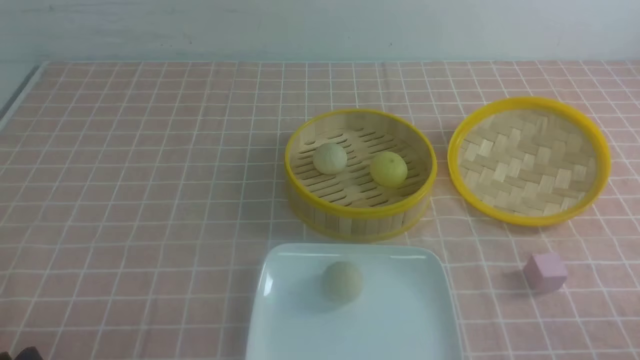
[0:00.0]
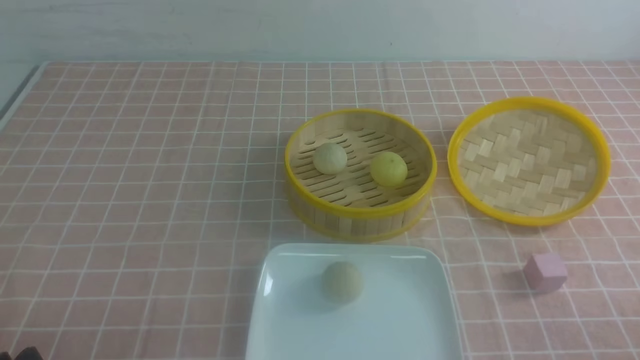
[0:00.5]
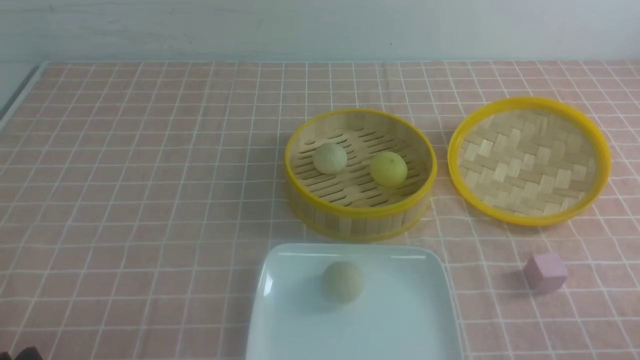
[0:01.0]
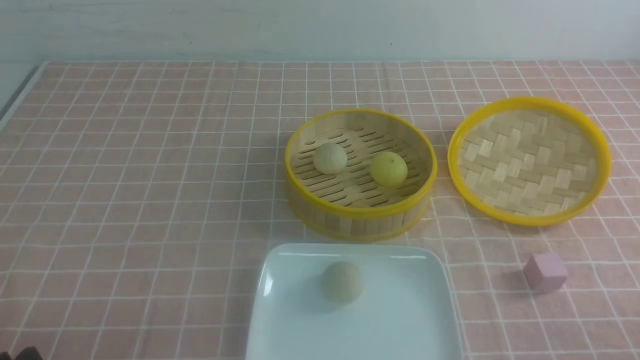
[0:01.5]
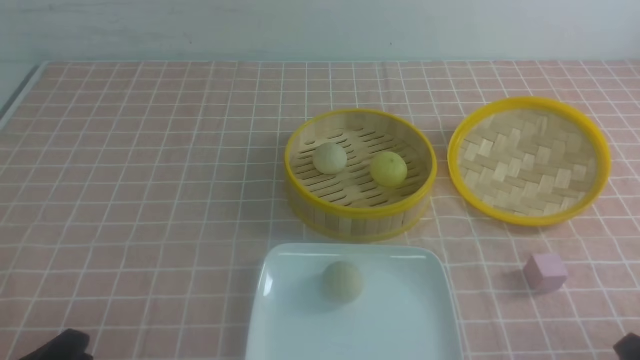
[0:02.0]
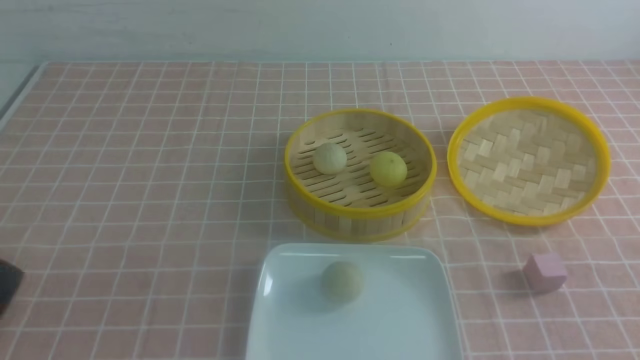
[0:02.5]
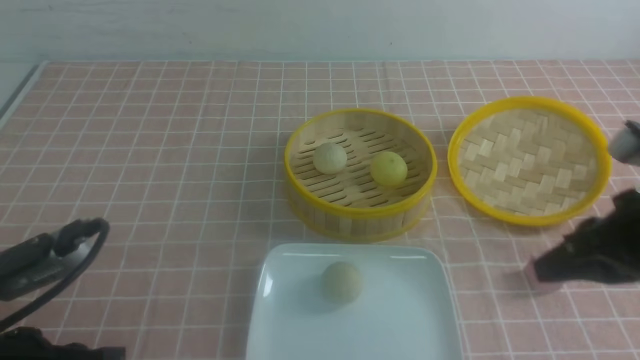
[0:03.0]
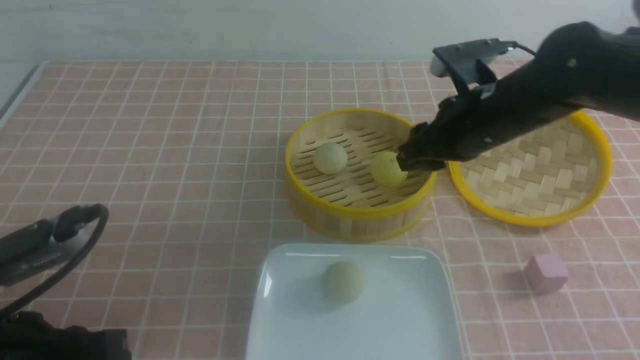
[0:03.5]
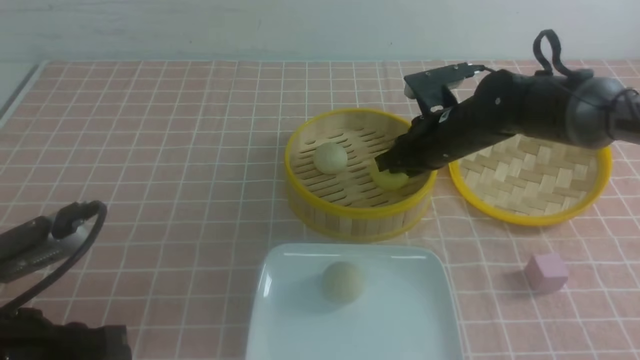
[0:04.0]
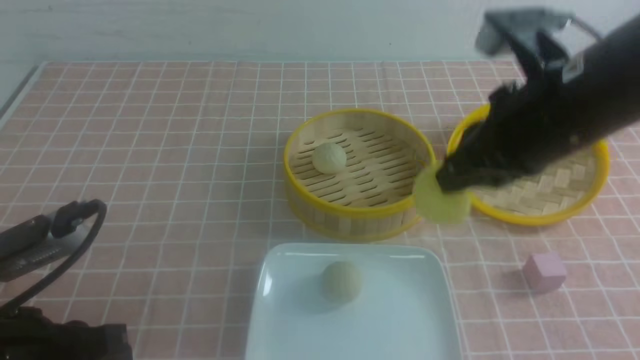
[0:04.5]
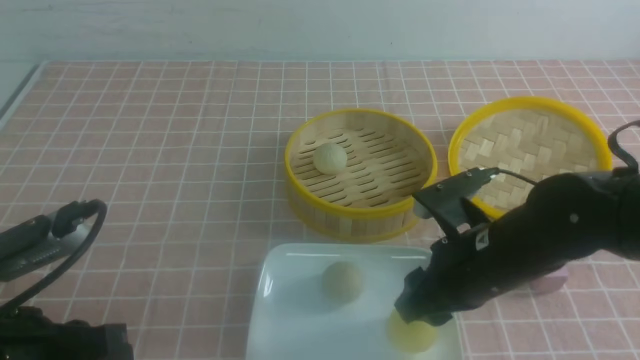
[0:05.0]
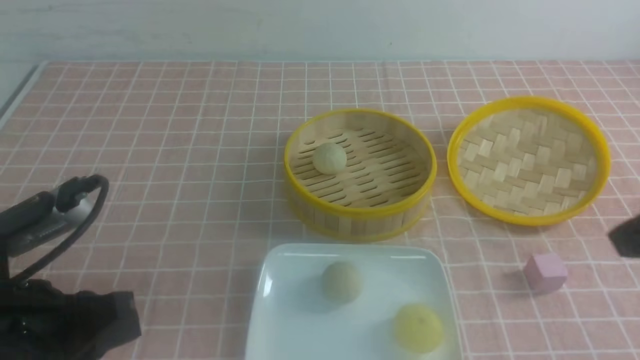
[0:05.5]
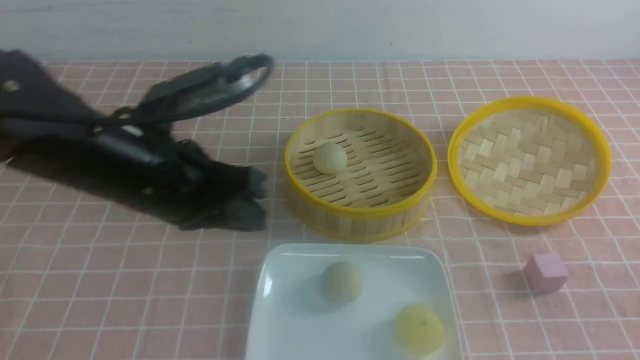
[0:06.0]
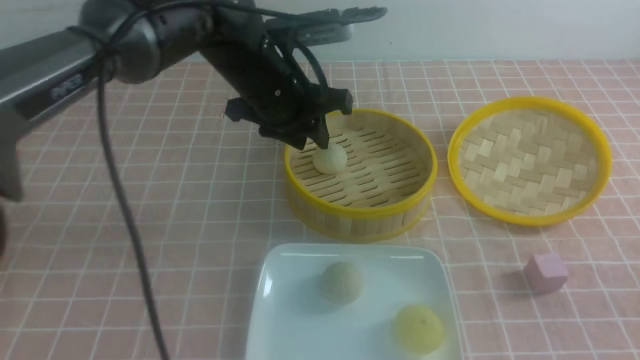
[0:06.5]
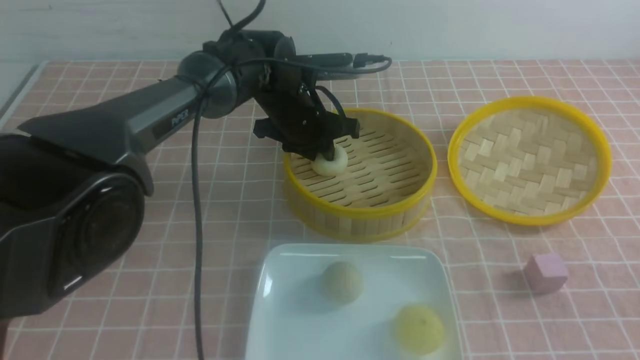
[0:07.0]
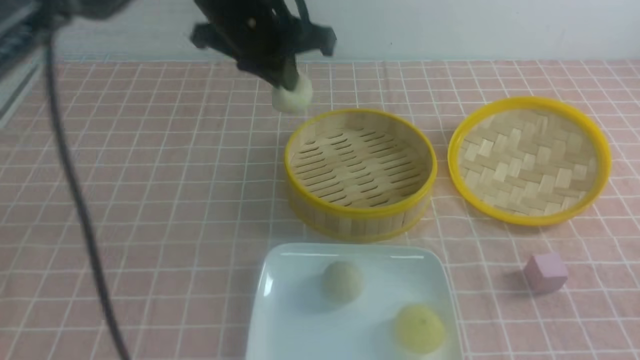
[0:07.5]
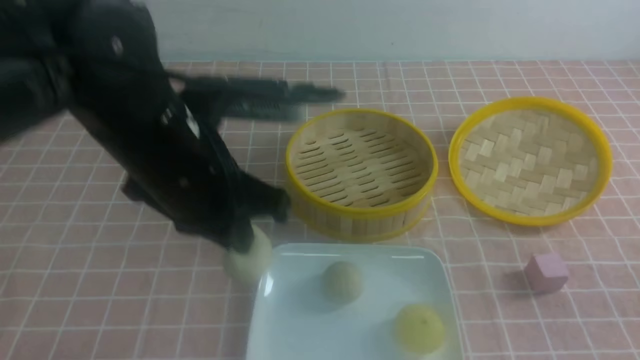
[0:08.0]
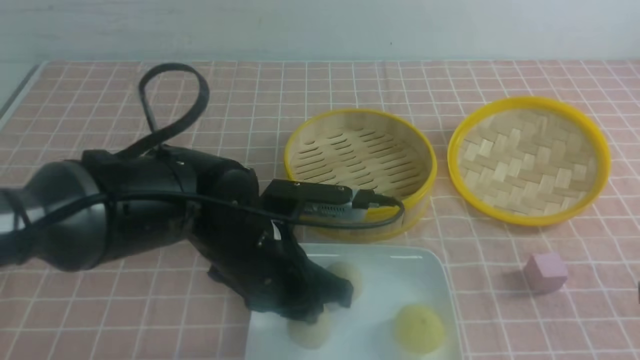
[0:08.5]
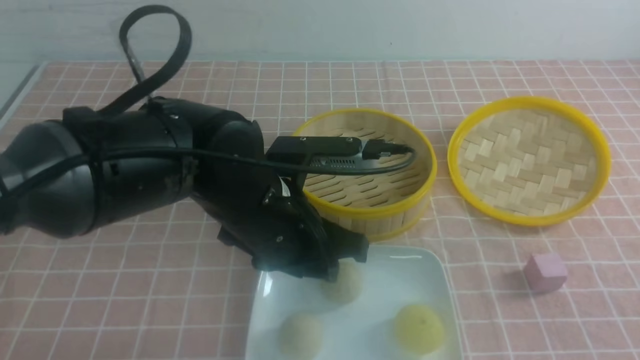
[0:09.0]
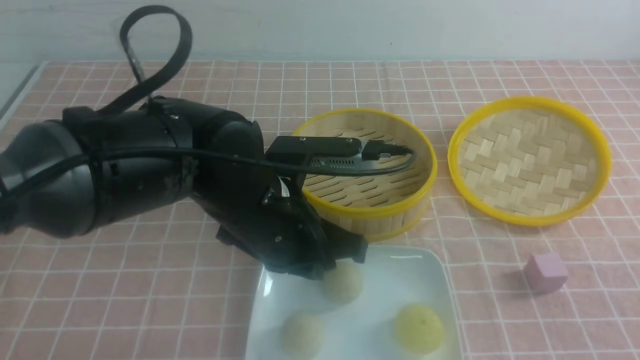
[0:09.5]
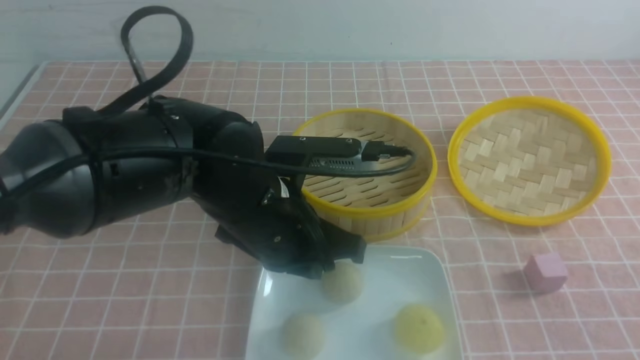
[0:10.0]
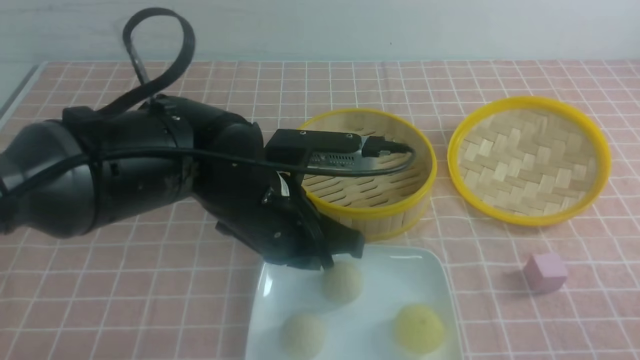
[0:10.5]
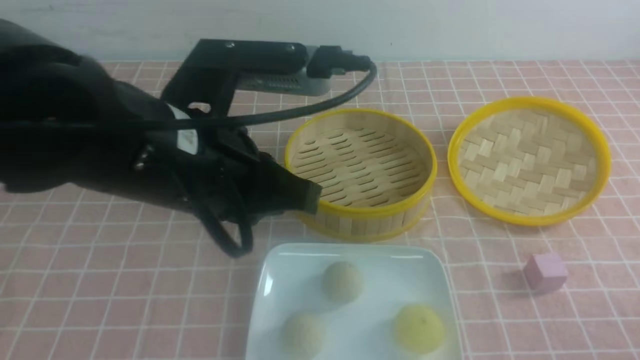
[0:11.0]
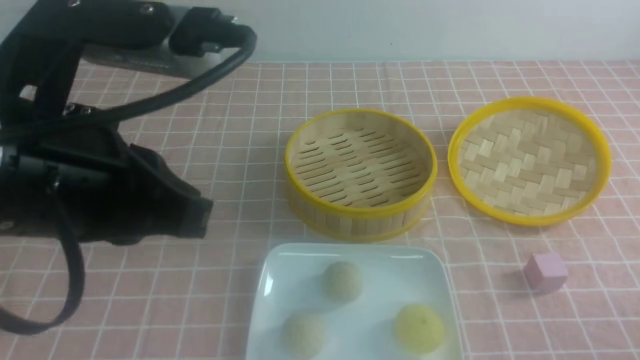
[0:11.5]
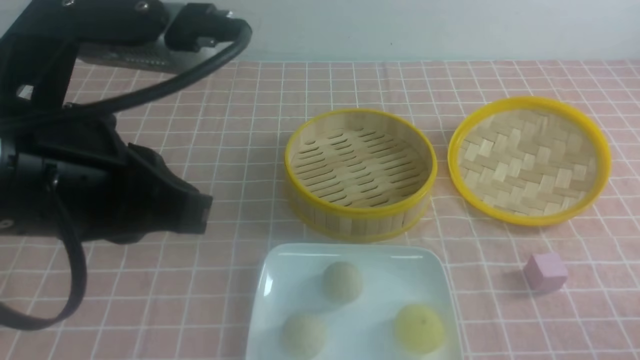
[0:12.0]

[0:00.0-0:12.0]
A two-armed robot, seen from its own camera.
Step, 0:00.0 to 0:04.0: use the right arm to grab the steamed stuffed bun that is closest to it.
Step, 0:04.5 to 0:05.0: use the right arm to put the steamed stuffed bun into the plate.
Step, 0:05.5 to 0:07.0: use the left arm to grab the steamed stuffed bun that is closest to it.
Step, 0:07.5 to 0:08.5: use the left arm to put the steamed stuffed bun into the plate.
0:02.0 to 0:04.0: The left gripper moves upward and forward, about 10 cm, and closes its fingers. Meanwhile the right gripper is displaced forward and to the left by about 40 cm.
0:04.0 to 0:06.0: The right gripper is displaced backward and to the right by approximately 35 cm, and closes its fingers. Meanwhile the left gripper goes approximately 15 cm forward and to the right.
0:06.0 to 0:08.0: The left gripper goes forward and returns, roughly 20 cm each way, and opens and closes again.
0:08.0 to 0:10.0: The left gripper shifts roughly 5 cm downward, and opens, then closes once more.
0:10.0 to 0:12.0: The right gripper travels downward by some 10 cm. The left gripper moves upward, to the left and backward, some 20 cm.

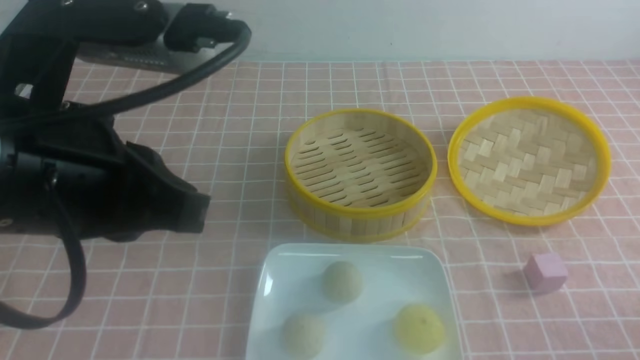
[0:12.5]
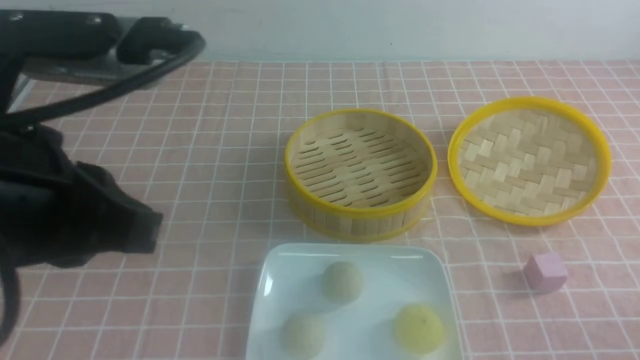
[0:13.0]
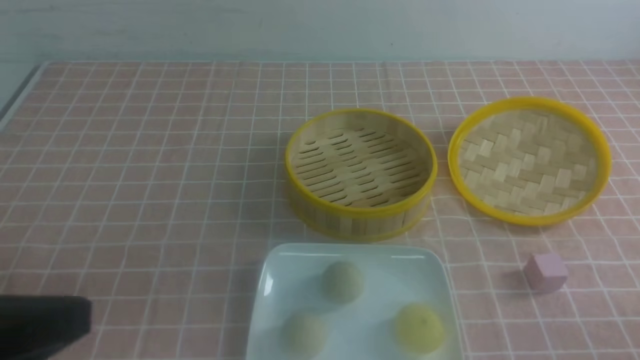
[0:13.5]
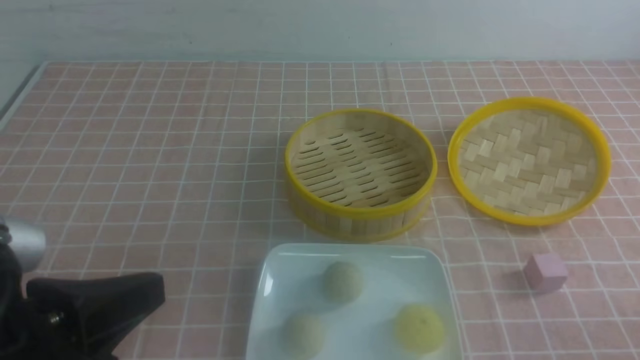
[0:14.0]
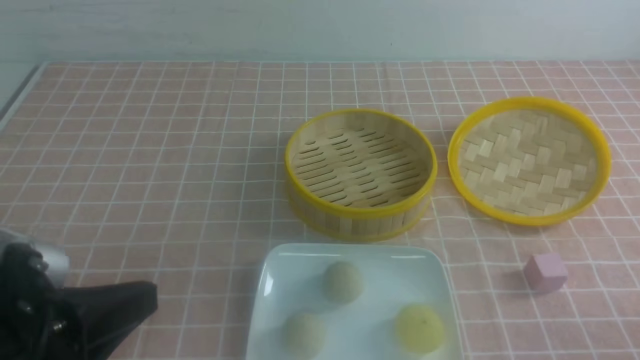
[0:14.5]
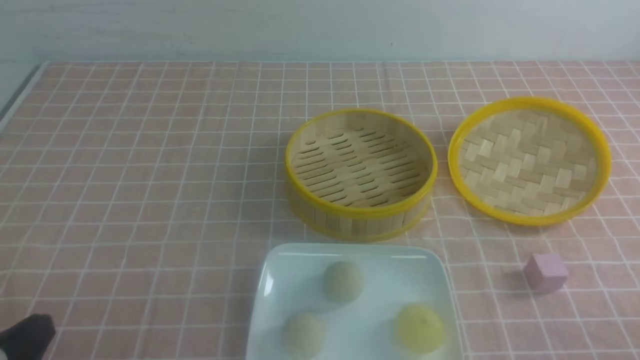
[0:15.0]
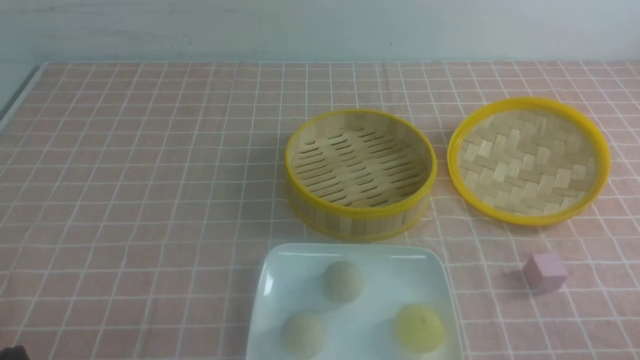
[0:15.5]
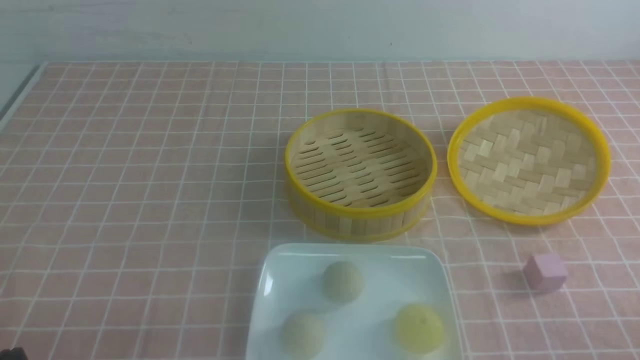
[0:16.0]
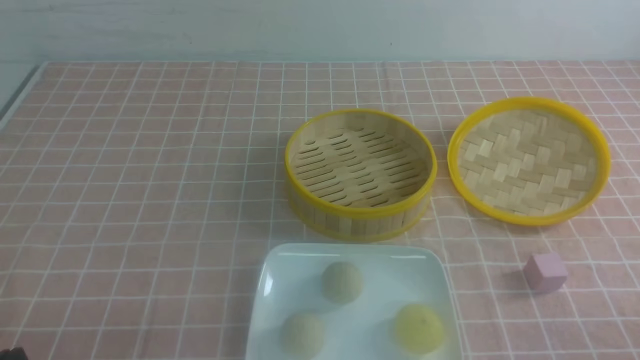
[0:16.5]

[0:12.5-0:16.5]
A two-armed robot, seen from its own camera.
0:12.5 to 0:14.5: The left gripper shifts approximately 15 cm downward, backward and to the left.
0:14.5 to 0:16.5: The left gripper moves downward and to the left, some 15 cm.
